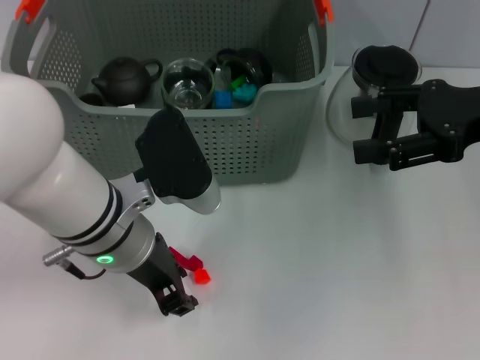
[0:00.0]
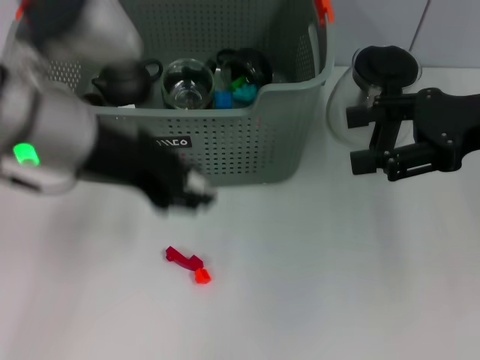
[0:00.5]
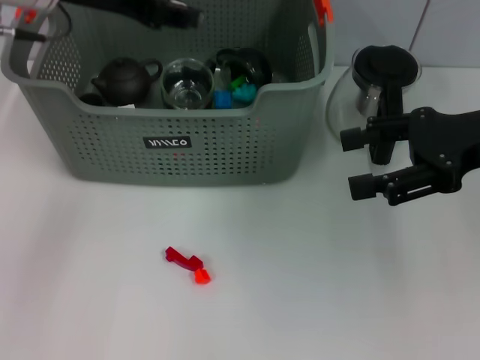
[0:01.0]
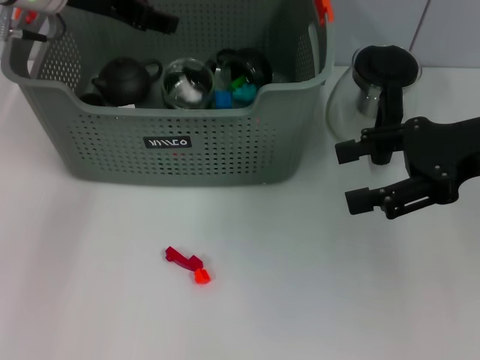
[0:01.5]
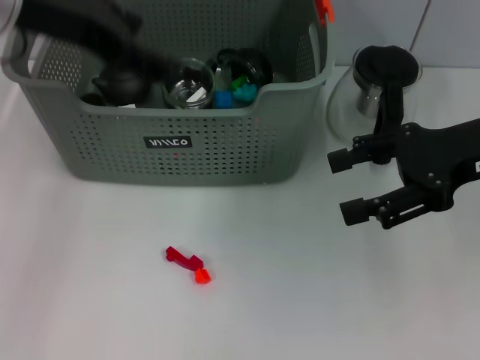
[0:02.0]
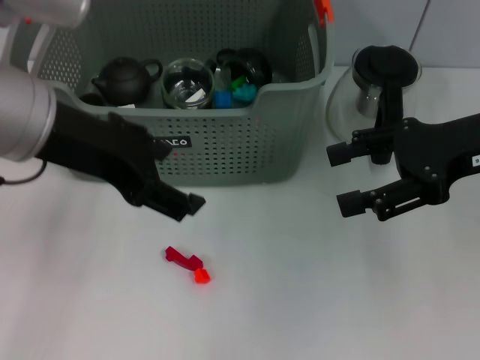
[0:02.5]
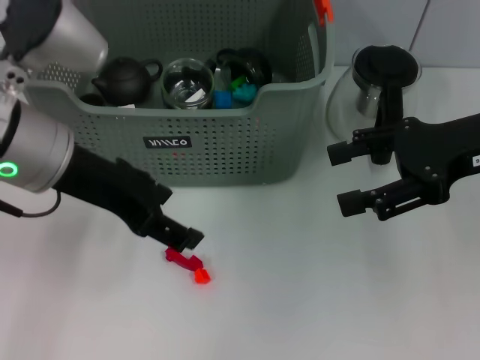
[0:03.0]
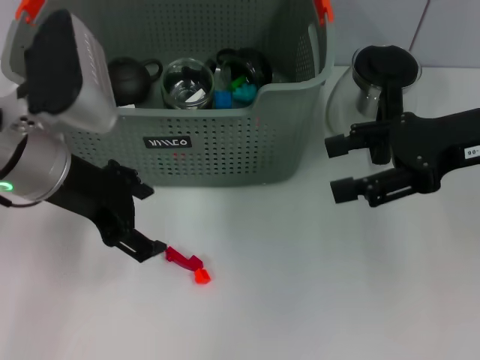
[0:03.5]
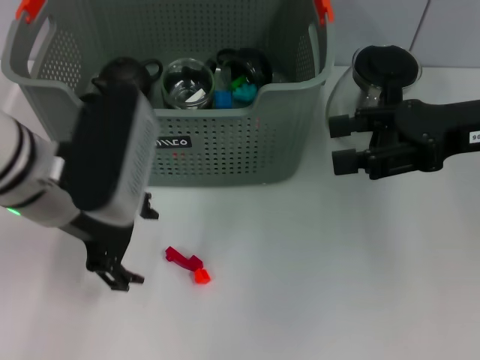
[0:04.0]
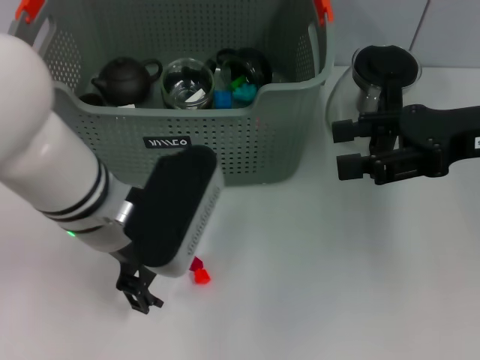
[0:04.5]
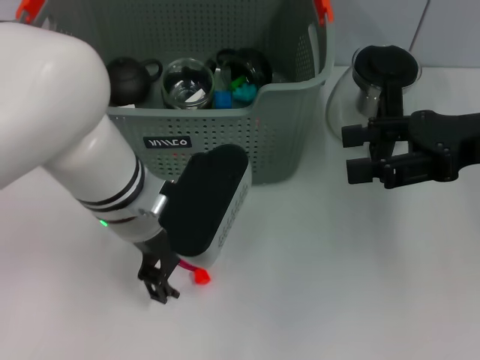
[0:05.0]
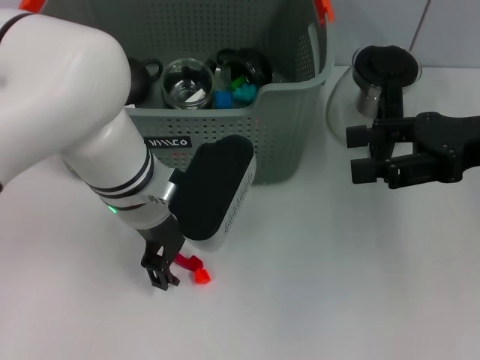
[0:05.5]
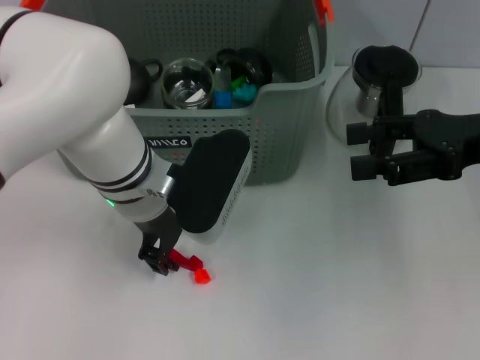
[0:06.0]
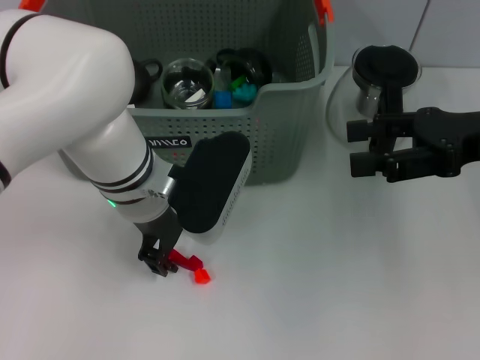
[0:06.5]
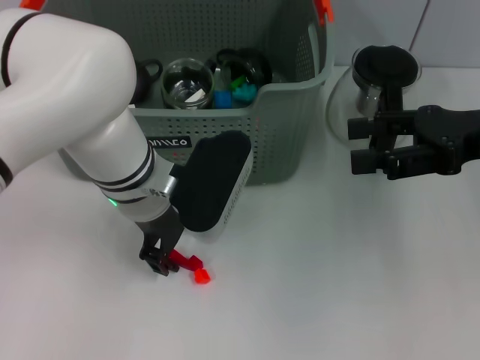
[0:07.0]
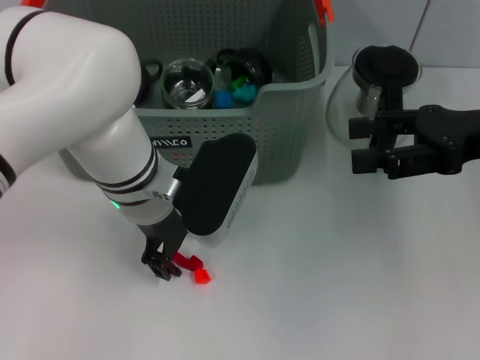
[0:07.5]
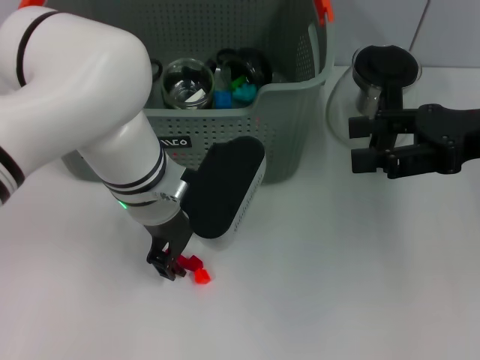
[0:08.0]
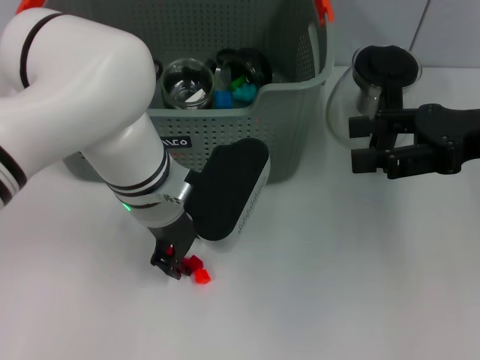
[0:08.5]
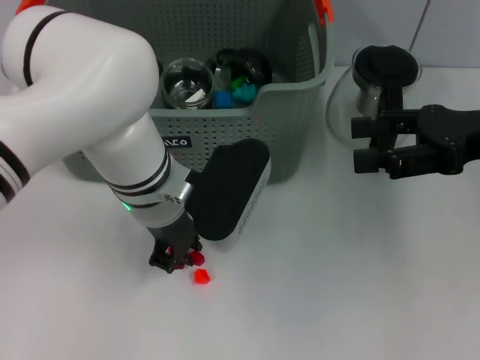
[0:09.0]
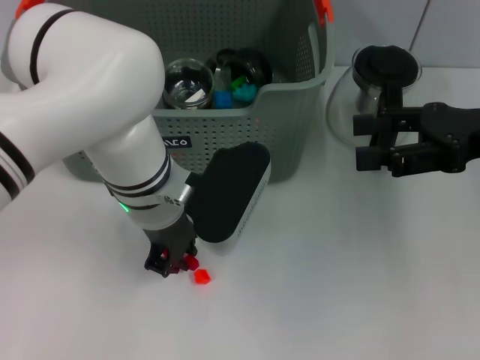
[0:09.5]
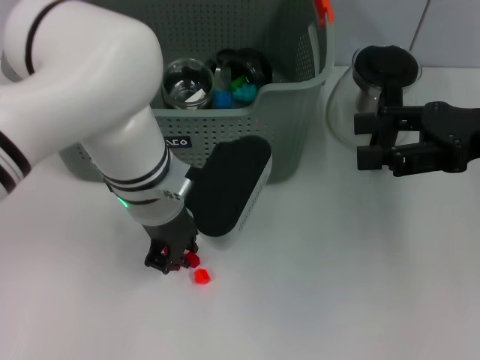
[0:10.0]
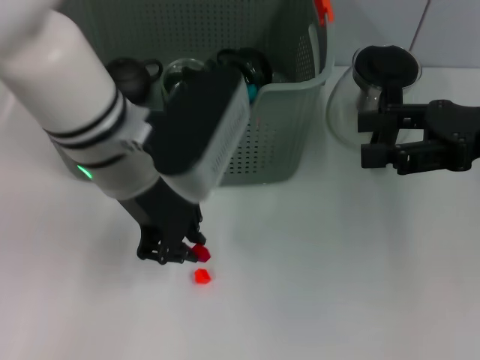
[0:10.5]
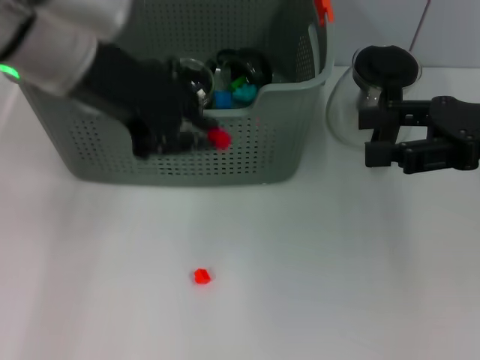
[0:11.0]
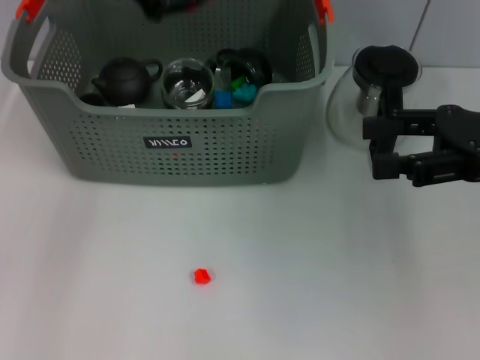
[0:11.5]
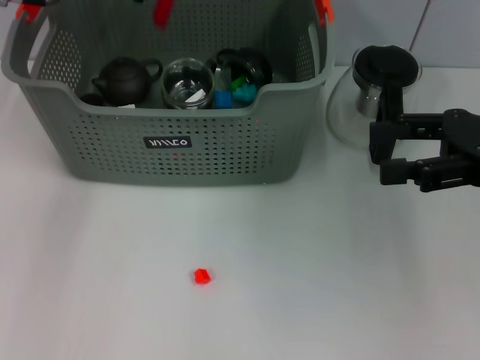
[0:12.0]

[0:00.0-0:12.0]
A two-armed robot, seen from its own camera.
Task of the whole recording: pick up the teacup on the table and place it into the storage bin, pick up the block on the table and place it into the storage bin.
Step, 0:00.0 to 0:01.0: Place the white block in the storage box with left gripper.
Step, 0:02.0 to 0:09.0: Grasp the red block with left gripper.
0:00.0 to 0:02.0: The left gripper heads upward and to the left, covering some 20 cm, and opens.
0:02.0 to 0:04.0: The left gripper shifts about 10 cm downward.
0:04.0 to 0:06.0: The left gripper goes about 5 cm to the right.
0:06.0 to 0:08.0: The two grippers keep their place.
0:08.0 to 0:10.0: The left gripper closes its fingers.
0:10.0 to 0:12.0: The left gripper is displaced forward, to the left and upward by about 20 cm.

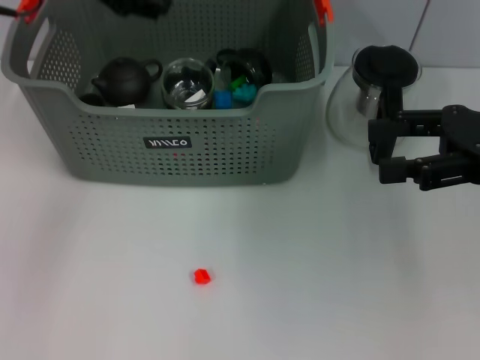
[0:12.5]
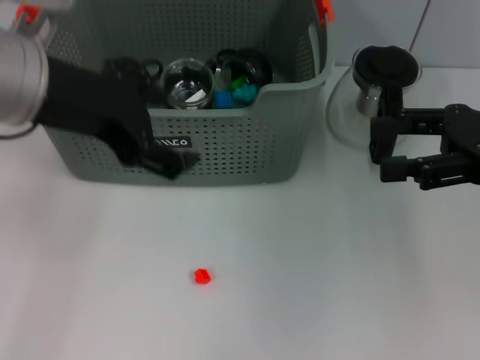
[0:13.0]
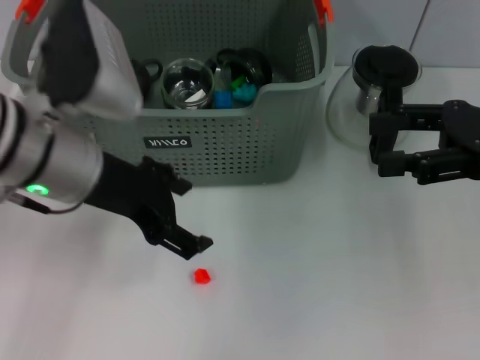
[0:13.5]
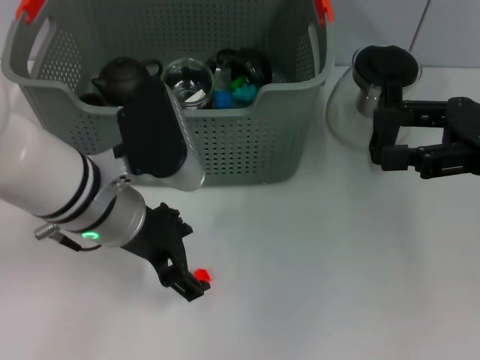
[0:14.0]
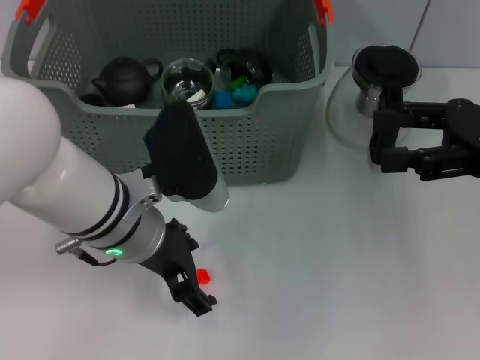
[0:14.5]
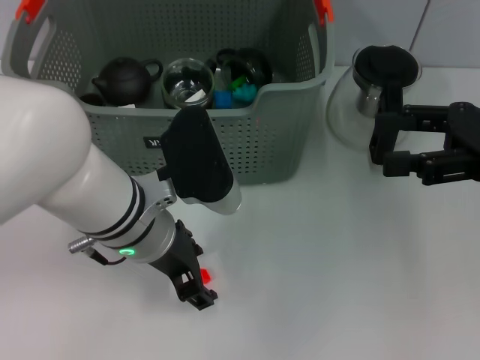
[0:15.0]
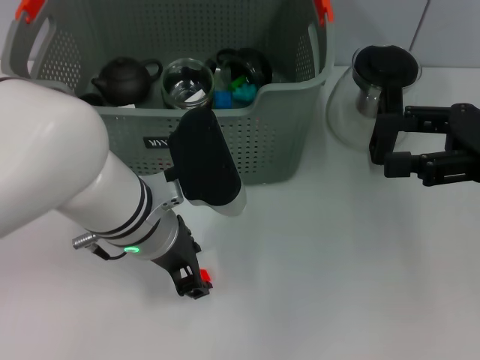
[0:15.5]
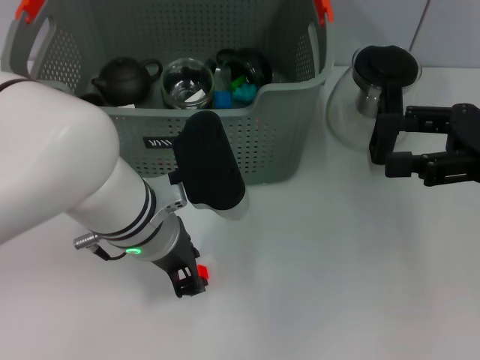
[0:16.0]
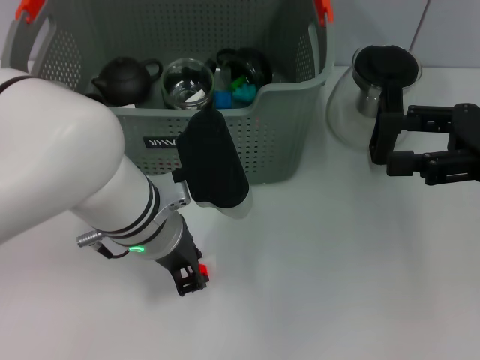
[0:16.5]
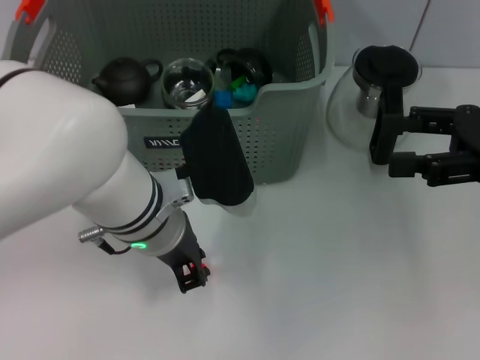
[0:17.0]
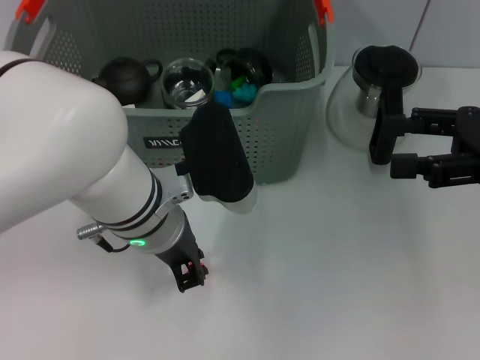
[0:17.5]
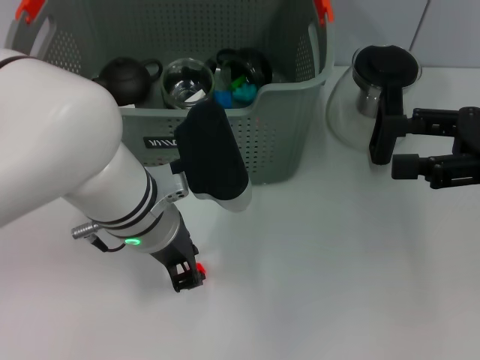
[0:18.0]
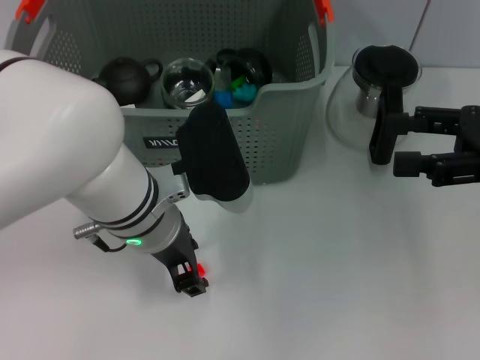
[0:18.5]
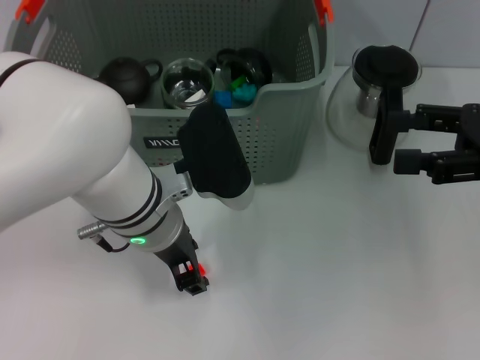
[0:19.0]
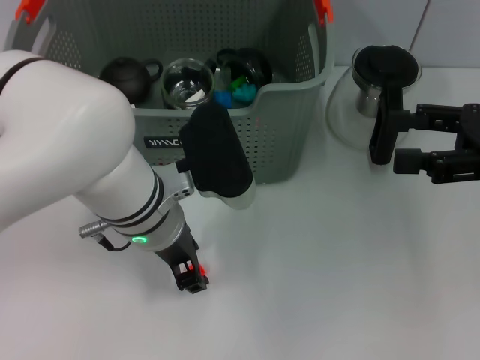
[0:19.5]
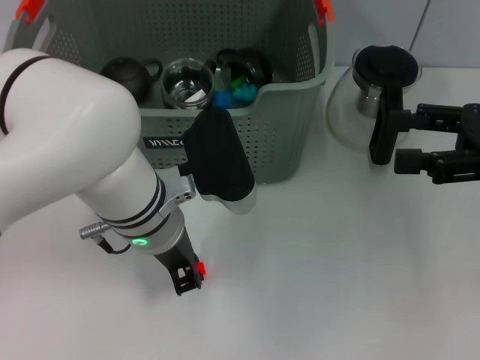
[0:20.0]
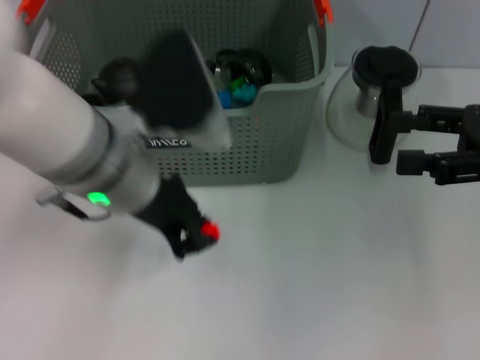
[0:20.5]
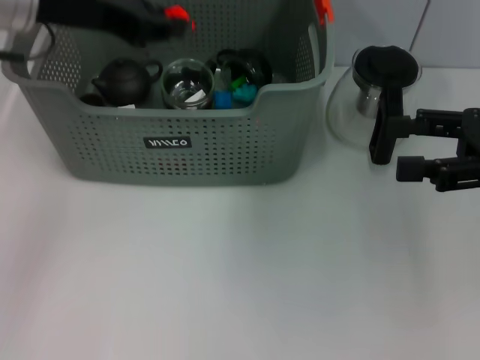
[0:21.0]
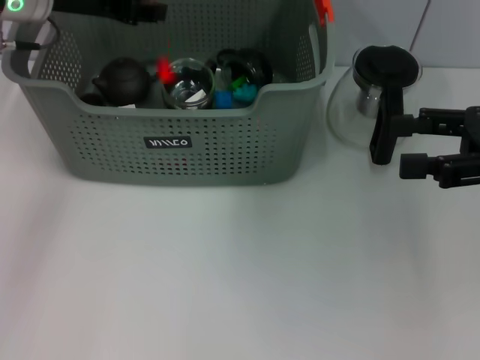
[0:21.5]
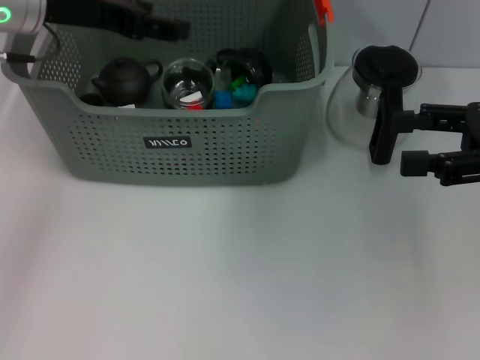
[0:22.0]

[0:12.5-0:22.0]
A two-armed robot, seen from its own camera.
Task of the whole recording: pick up the teacup on the table and place it into the storage bin, pick up the block on the table and place it into the storage bin.
Step, 0:12.5 to 0:20.0: Grasp the orange block with left gripper.
Step, 0:20.5 to 0:21.5: Place the orange block in the storage box with left gripper.
0:12.5 to 0:14.5: The left gripper shifts approximately 20 cm downward, backward and to the right, and opens.
0:14.5 to 0:16.5: The left gripper closes up.
0:16.5 to 0:20.0: Both grippers stay about where they are.
0:20.0 to 0:22.0: The left gripper goes some 20 cm to the left, upward and forward.

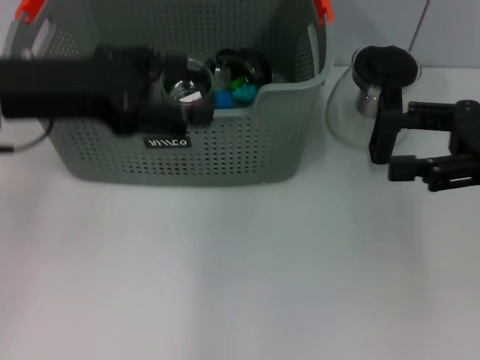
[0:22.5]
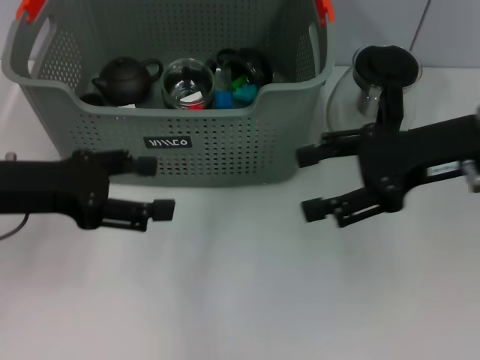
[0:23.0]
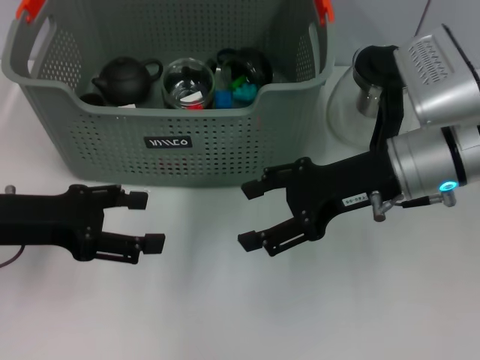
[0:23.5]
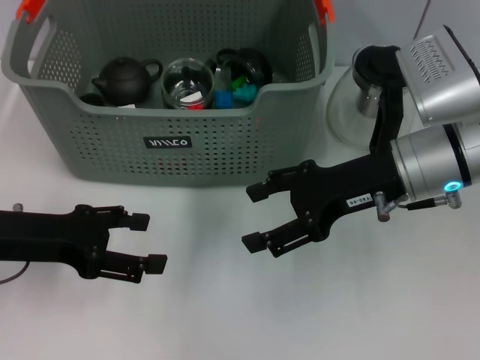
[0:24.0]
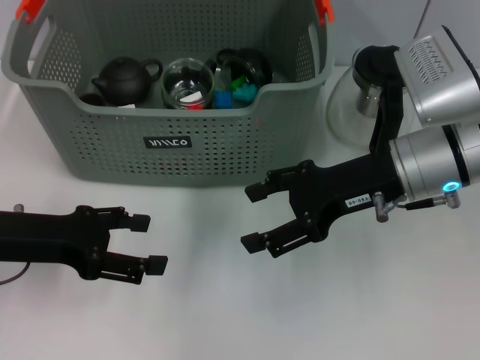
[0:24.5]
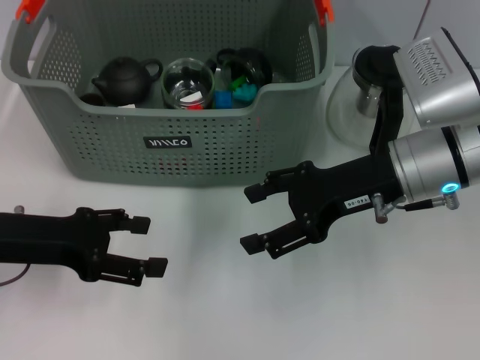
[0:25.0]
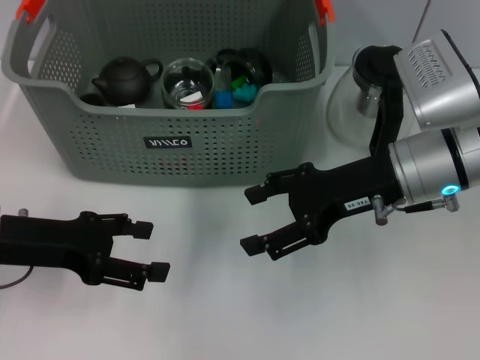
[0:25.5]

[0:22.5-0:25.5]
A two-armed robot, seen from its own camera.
Task of the whole recording: pick up the teacup on the table and place it into the storage bin, pick up the block on the table and place it into the storage bin.
0:22.5 to 0:24.0: The left gripper goes some 10 cm downward; the right gripper heads to the left, covering some 15 cm.
0:24.0 to 0:25.5: Both grippers stay about where they are.
